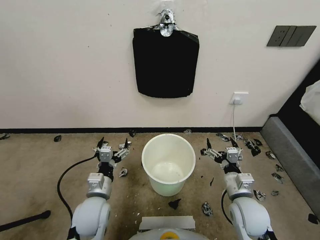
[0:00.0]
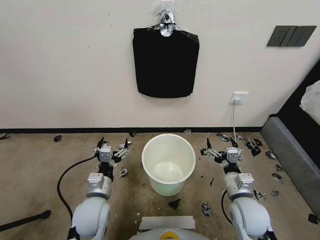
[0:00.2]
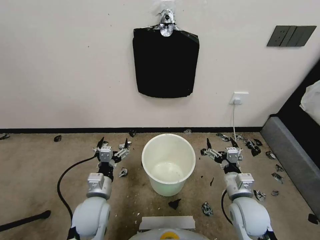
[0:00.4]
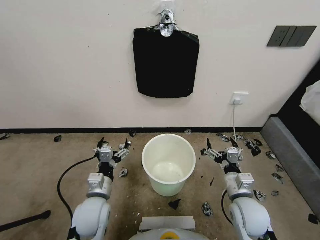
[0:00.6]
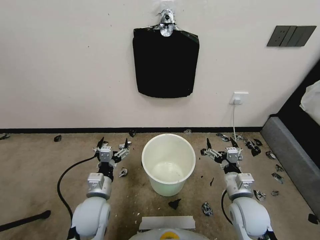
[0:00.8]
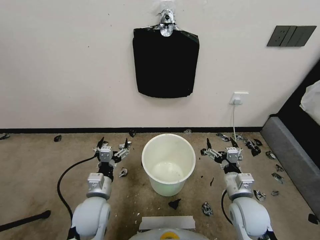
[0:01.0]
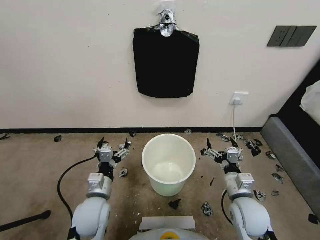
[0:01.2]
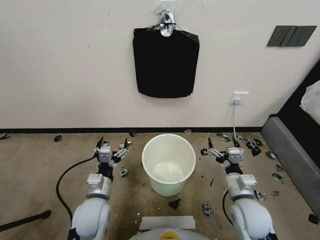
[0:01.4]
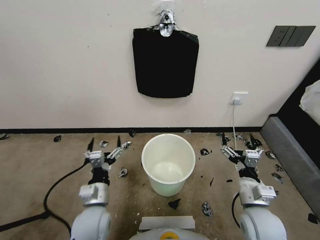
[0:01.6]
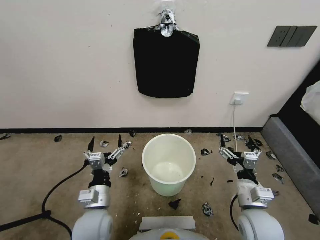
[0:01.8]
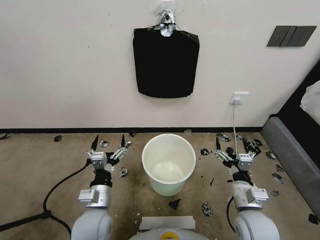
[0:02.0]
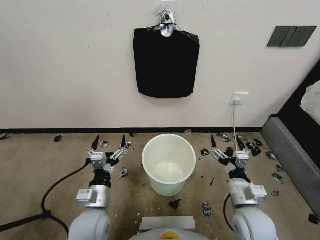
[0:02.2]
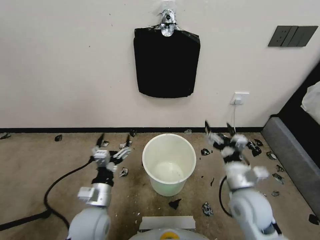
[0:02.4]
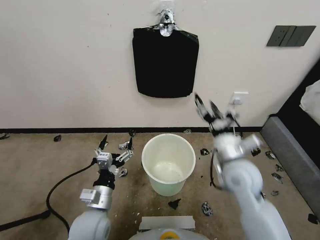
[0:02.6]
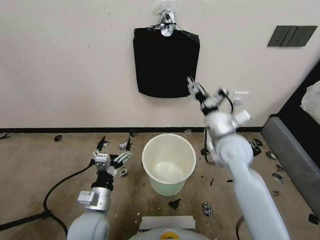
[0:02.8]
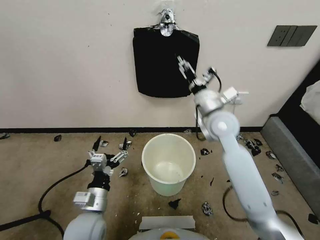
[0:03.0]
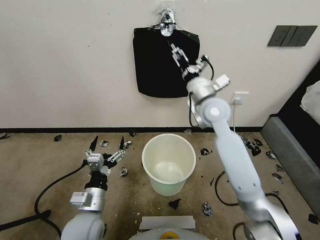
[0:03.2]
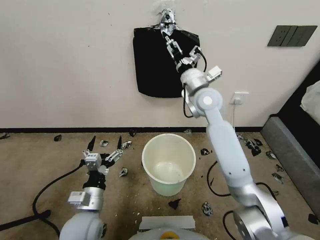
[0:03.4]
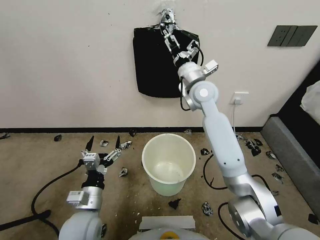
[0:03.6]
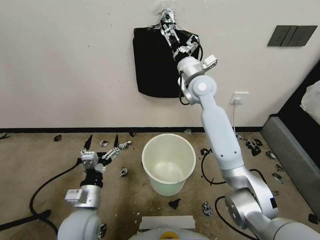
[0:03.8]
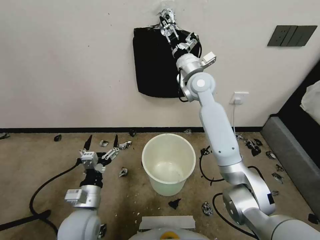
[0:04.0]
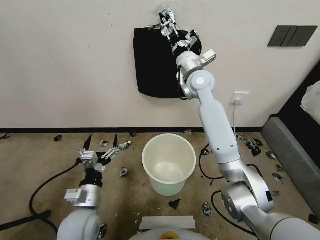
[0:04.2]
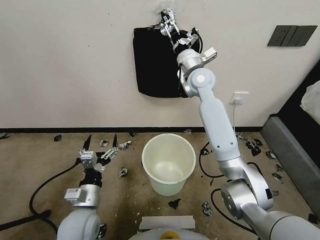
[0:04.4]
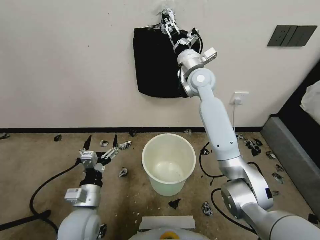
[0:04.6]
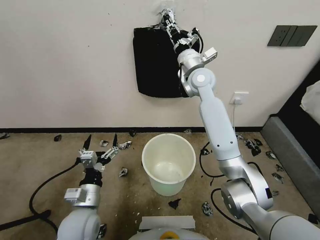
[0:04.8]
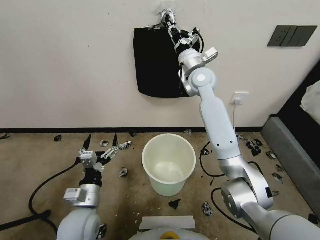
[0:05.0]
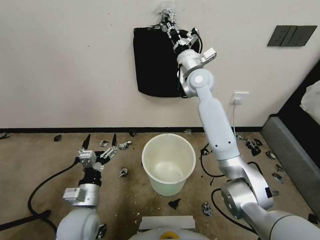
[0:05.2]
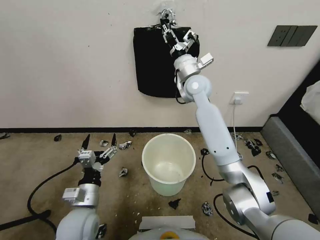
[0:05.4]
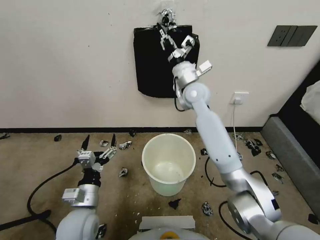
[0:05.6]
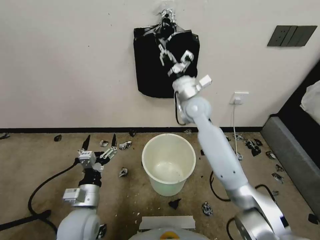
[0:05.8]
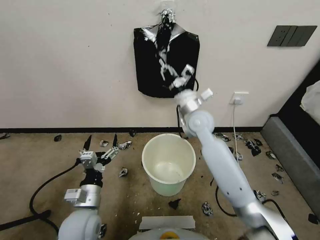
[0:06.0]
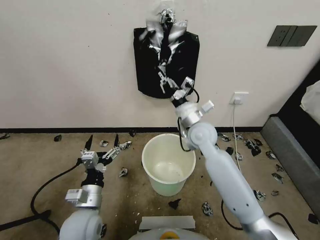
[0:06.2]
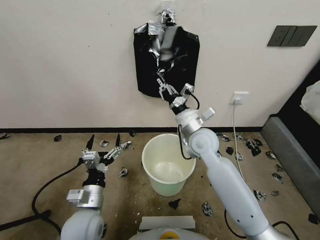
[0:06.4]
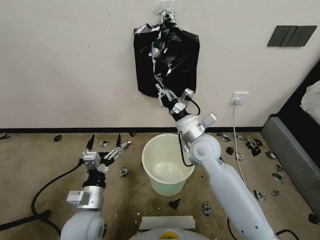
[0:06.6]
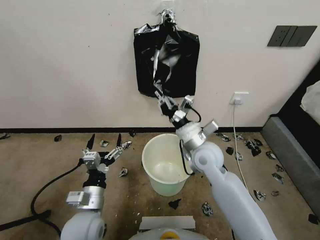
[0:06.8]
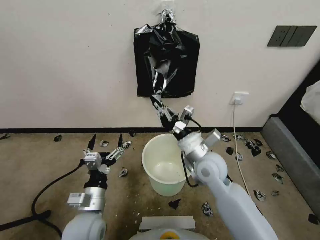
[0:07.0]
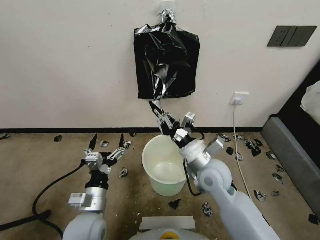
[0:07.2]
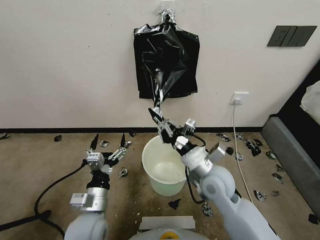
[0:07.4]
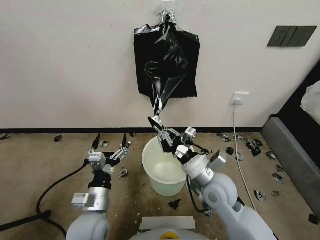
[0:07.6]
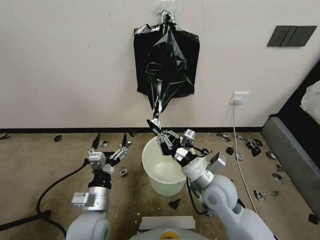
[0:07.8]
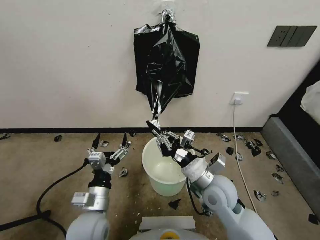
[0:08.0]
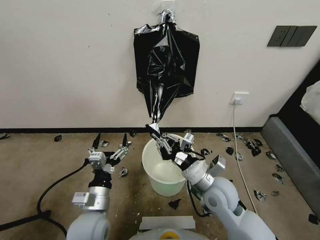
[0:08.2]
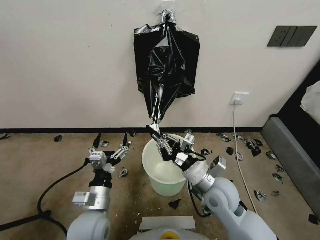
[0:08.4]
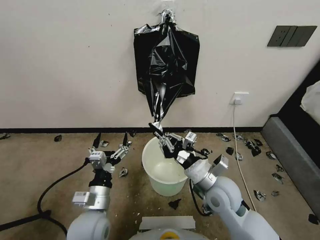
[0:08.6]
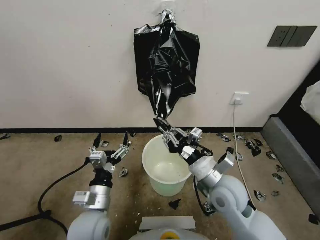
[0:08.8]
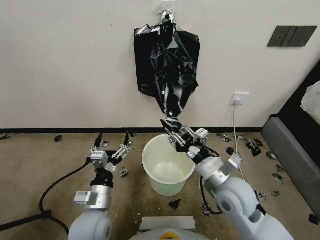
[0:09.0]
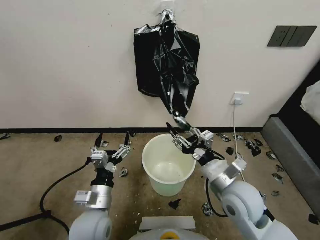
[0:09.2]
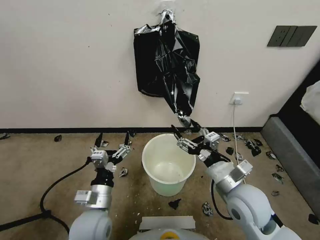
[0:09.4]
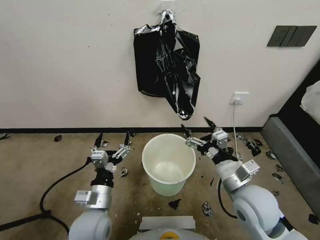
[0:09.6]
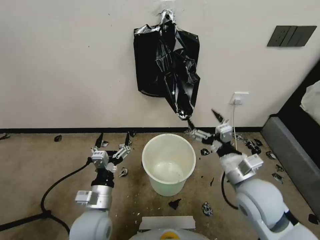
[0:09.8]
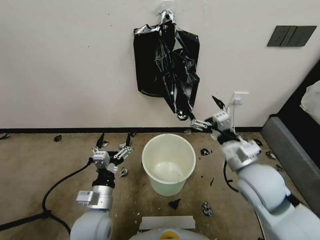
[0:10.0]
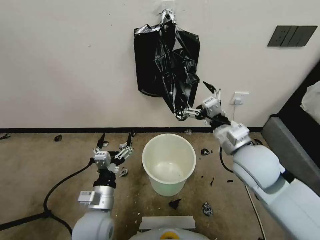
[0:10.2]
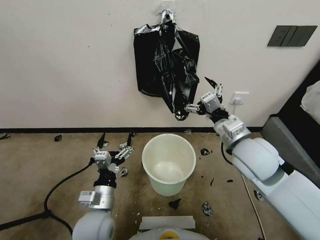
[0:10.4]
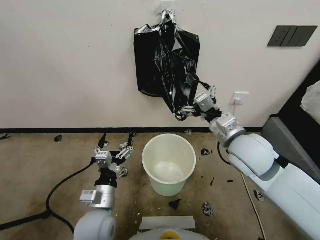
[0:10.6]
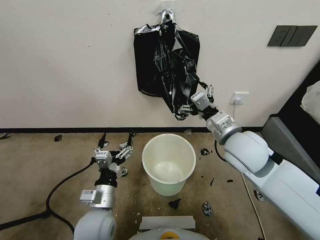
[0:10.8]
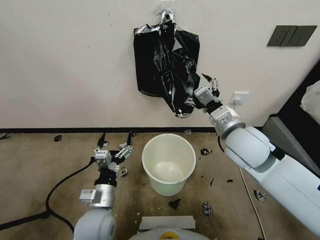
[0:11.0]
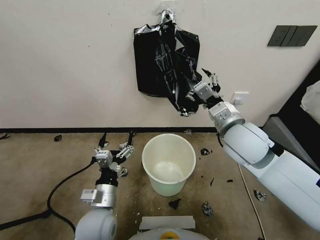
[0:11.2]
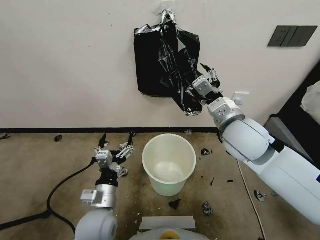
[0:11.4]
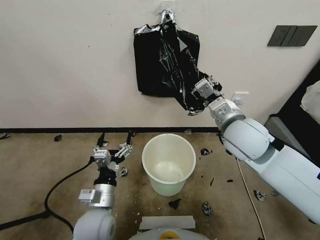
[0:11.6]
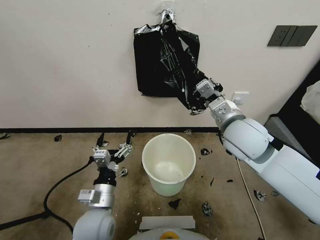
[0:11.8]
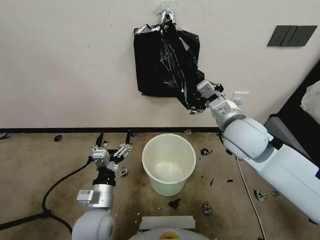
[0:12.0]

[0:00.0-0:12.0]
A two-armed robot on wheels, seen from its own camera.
Task of the whole recording: Place a trash bag onto the trash bin.
0:01.6 to 0:03.0: The right gripper shifts roughly 25 cm forward and upward.
0:03.0 to 0:04.4: The right gripper is displaced forward and upward by about 15 cm.
0:04.4 to 0:06.0: The right gripper heads downward and backward, covering approximately 15 cm, and closes its fingers.
0:06.0 to 0:07.6: The right gripper travels backward and downward by approximately 20 cm.
0:07.6 to 0:09.0: The right gripper opens.
0:09.0 to 0:10.4: The right gripper moves upward and forward, roughly 10 cm, and opens its fingers.
0:10.4 to 0:12.0: The right gripper shifts by about 5 cm, and closes its fingers.

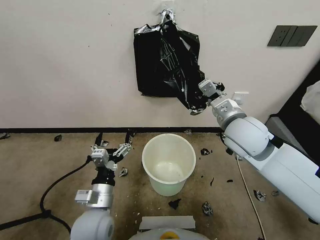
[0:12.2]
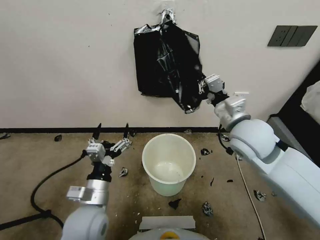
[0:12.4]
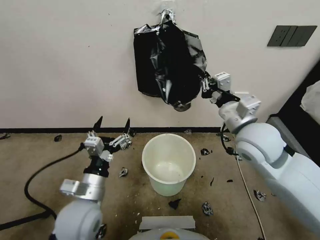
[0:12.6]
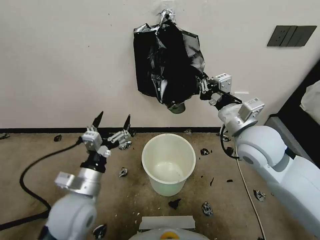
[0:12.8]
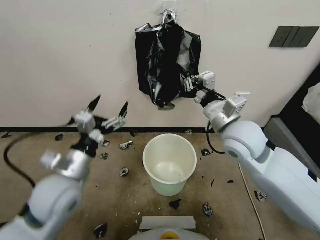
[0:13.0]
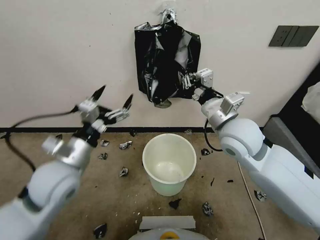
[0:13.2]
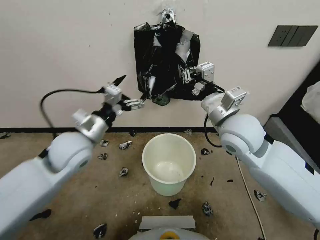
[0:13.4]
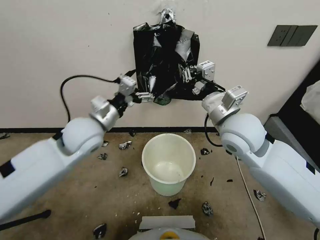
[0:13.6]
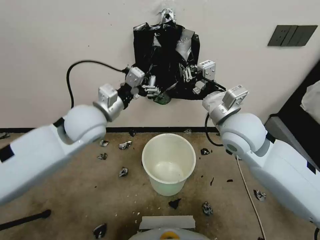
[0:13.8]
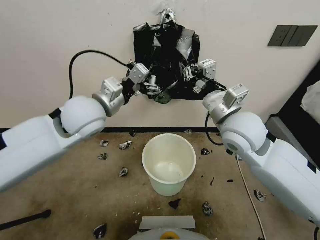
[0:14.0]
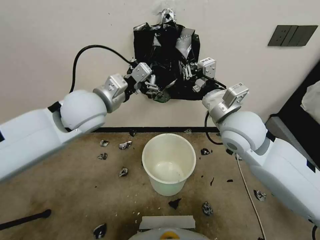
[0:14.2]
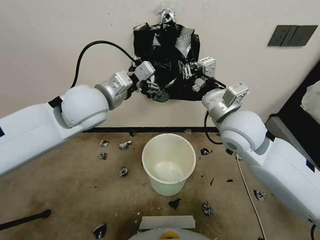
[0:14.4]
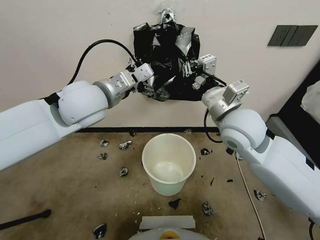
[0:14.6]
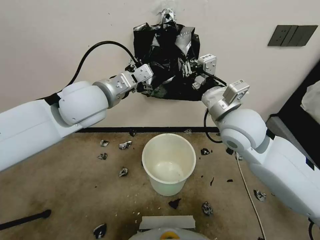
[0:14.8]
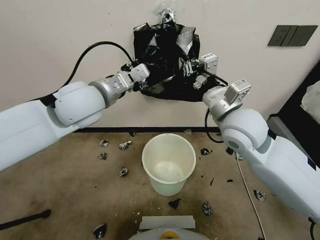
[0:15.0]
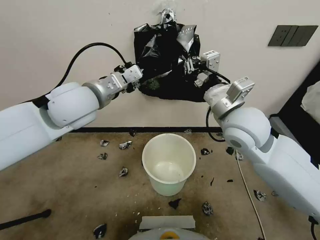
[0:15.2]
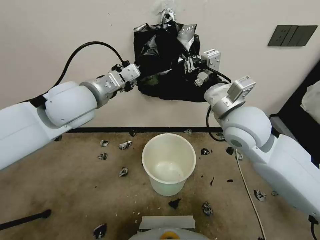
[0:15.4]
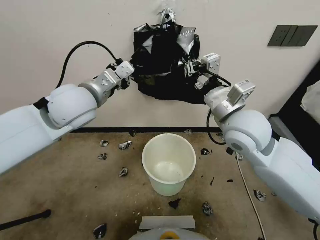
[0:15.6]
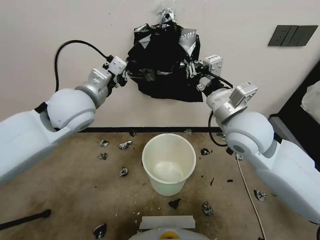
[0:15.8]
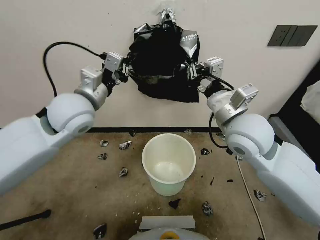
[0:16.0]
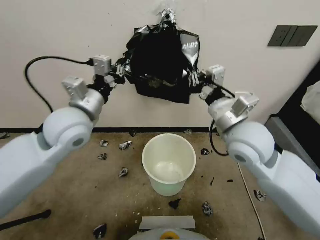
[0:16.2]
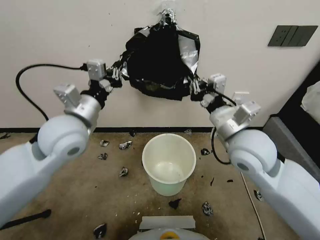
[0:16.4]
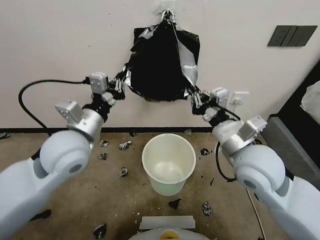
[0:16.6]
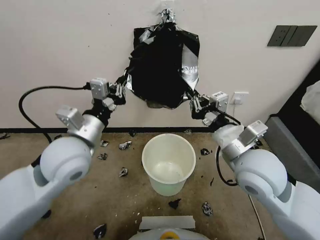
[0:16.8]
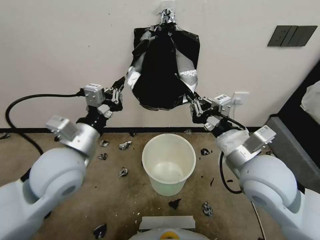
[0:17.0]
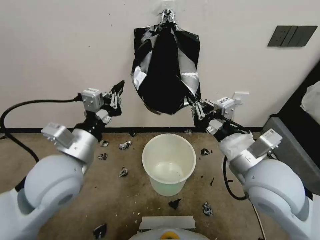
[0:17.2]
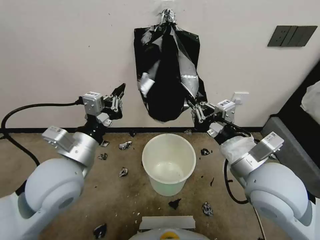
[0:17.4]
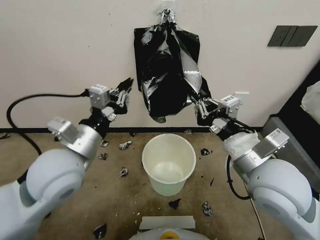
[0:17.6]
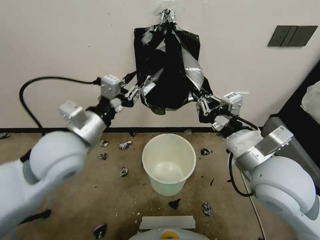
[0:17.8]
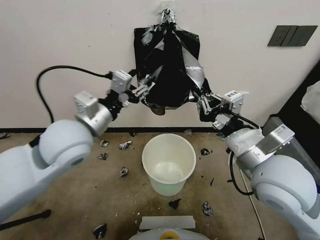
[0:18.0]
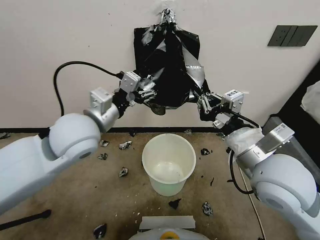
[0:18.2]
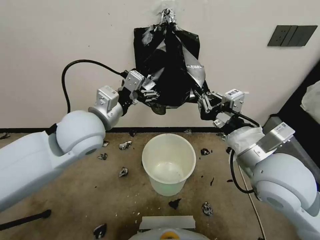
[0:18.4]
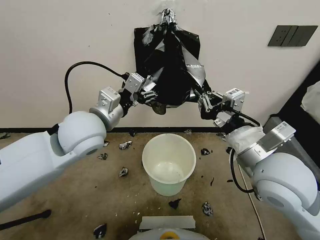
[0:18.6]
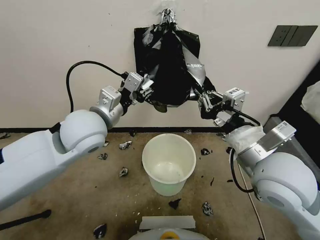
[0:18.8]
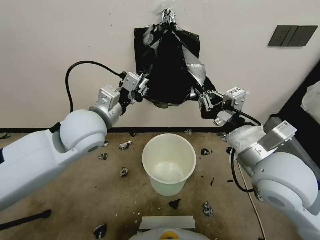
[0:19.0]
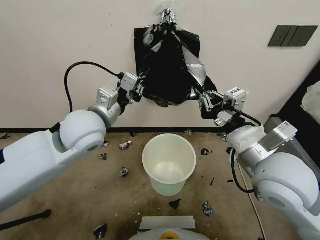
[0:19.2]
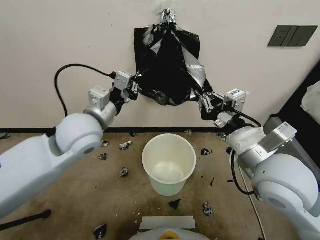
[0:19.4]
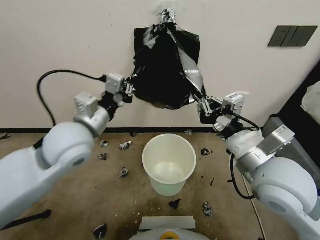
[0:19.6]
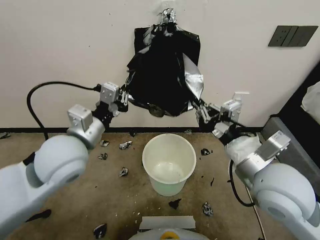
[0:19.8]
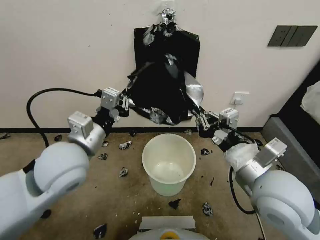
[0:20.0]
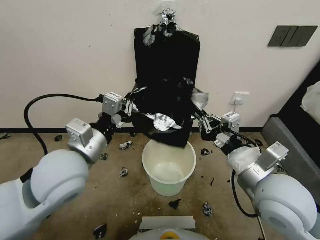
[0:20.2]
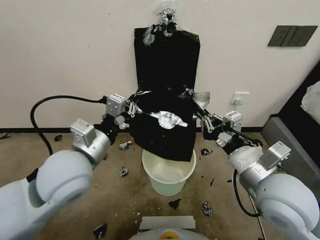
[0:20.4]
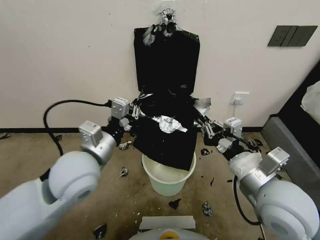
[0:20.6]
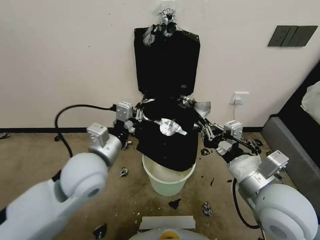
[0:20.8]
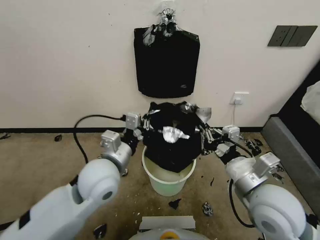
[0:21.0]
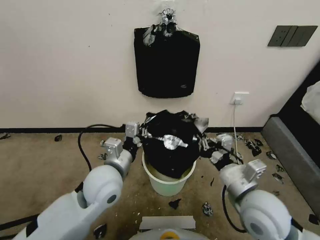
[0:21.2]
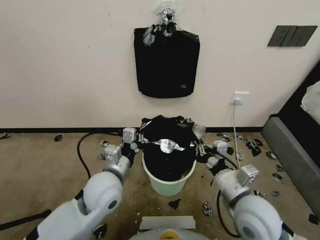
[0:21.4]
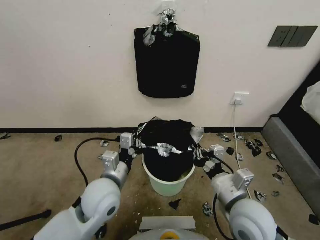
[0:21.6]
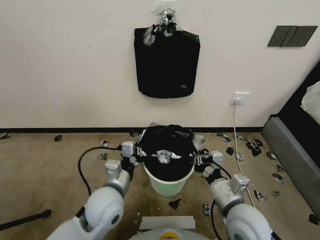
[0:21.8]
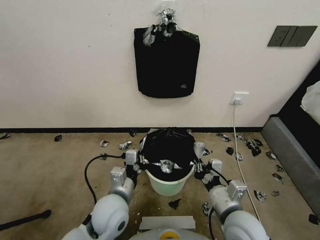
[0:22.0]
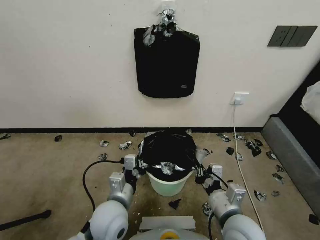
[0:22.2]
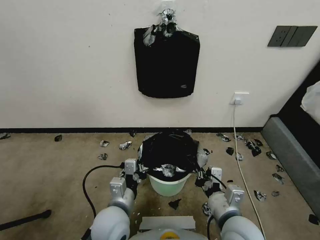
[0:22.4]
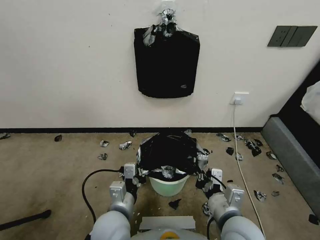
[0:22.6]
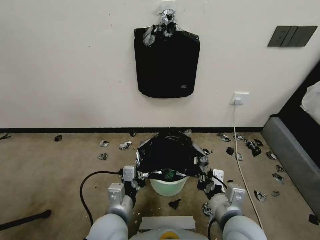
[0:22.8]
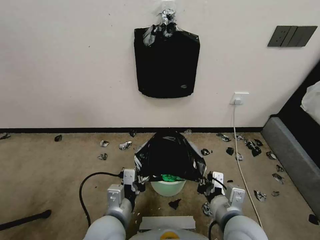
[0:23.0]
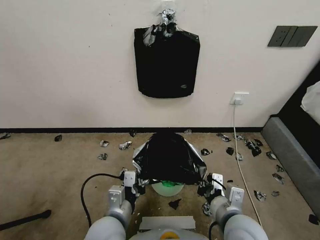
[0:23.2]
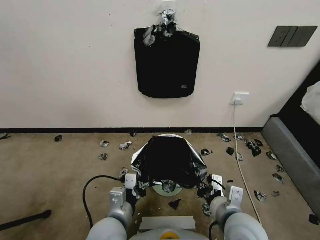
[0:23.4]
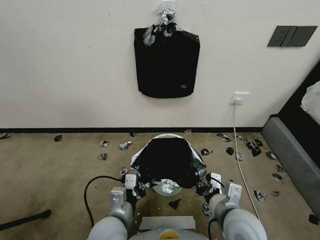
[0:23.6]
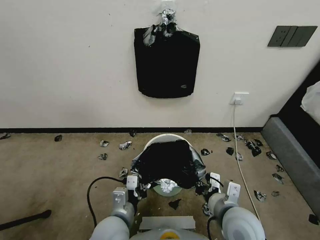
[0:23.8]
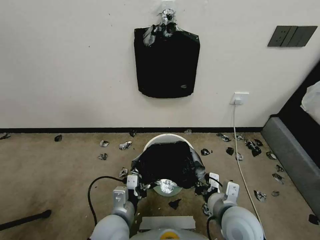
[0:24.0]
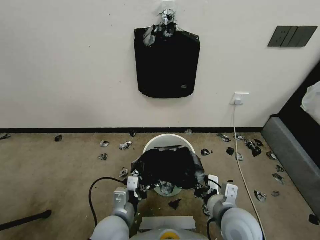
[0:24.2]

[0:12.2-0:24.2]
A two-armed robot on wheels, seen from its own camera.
Task of the whole recording: Place a trash bag onto the trash bin.
0:12.2 to 0:13.8: The left gripper is displaced upward and forward by about 30 cm.
0:13.8 to 0:15.2: The left gripper heads upward, covering some 5 cm, and closes its fingers.
0:15.2 to 0:16.6: The right gripper shifts by roughly 5 cm, while the left gripper goes roughly 10 cm downward and backward, and closes.
0:16.6 to 0:18.2: The right gripper goes roughly 5 cm backward. Meanwhile the left gripper goes backward and returns, roughly 5 cm each way, and opens its fingers.
0:18.2 to 0:19.8: The left gripper shifts by roughly 5 cm, and closes.
0:19.8 to 0:21.2: The left gripper travels downward and to the right by about 15 cm, while the right gripper shifts roughly 10 cm downward.
0:21.2 to 0:22.6: The right gripper goes some 5 cm downward, while the left gripper shifts some 15 cm downward and backward.
0:22.6 to 0:24.2: The grippers make only small movements.
